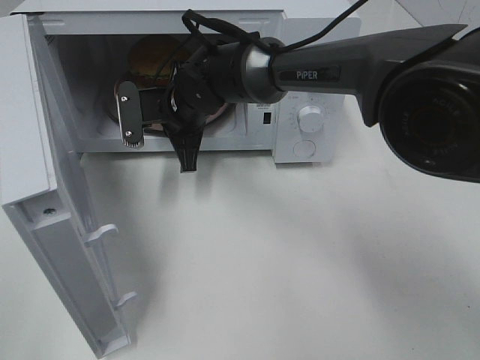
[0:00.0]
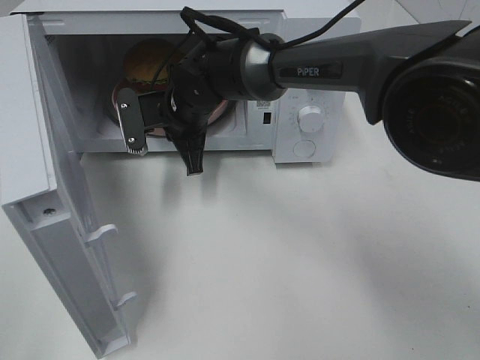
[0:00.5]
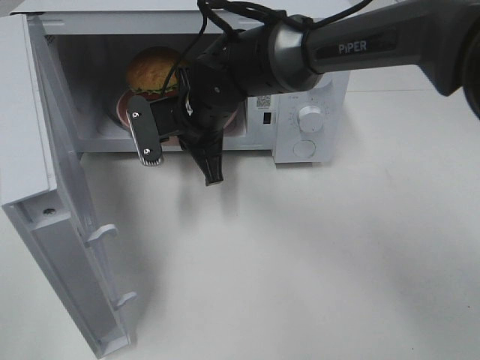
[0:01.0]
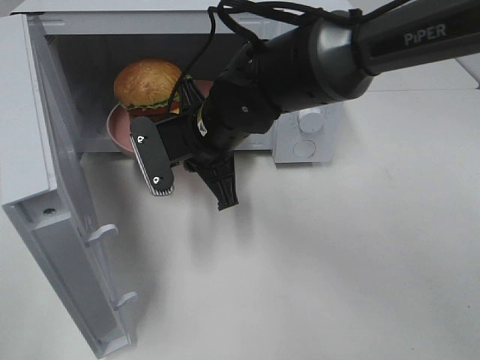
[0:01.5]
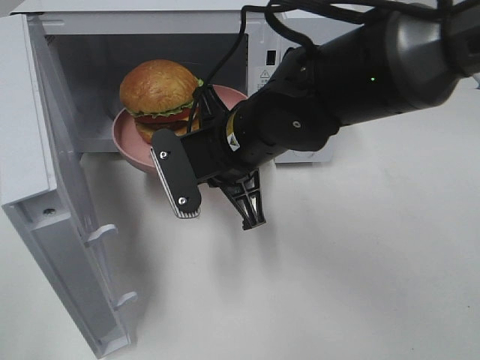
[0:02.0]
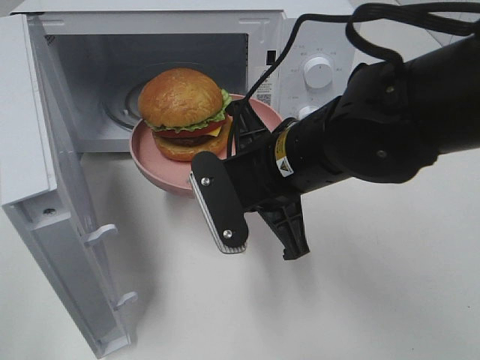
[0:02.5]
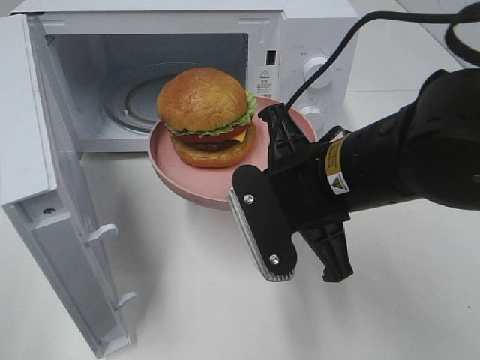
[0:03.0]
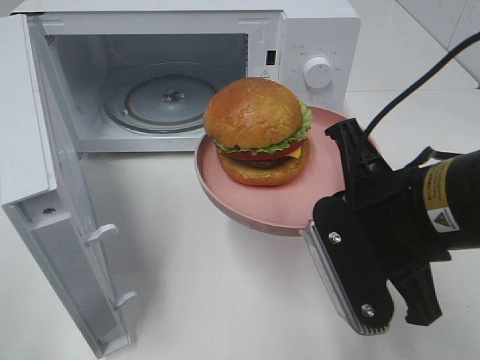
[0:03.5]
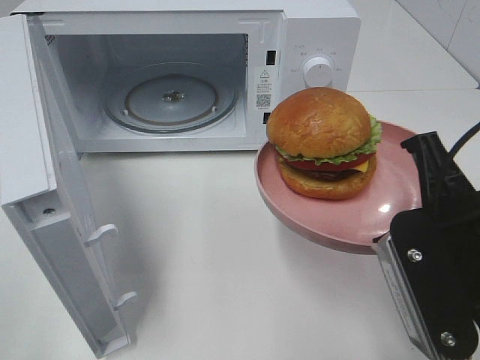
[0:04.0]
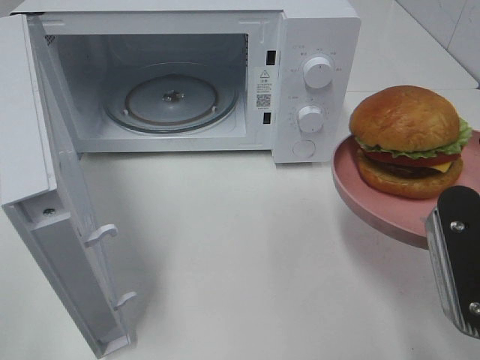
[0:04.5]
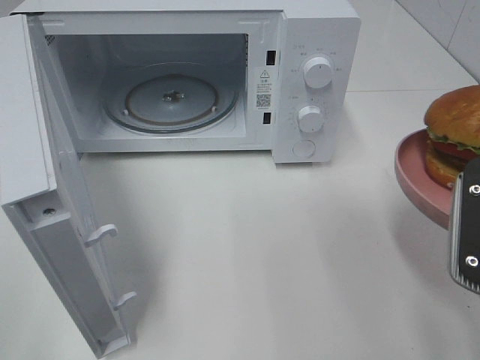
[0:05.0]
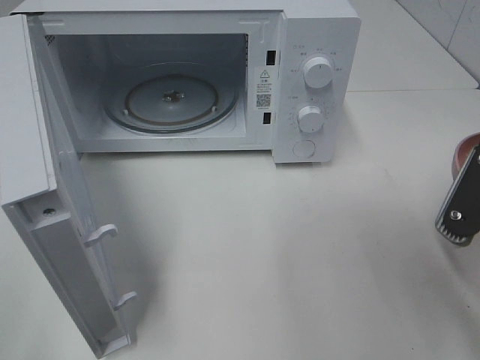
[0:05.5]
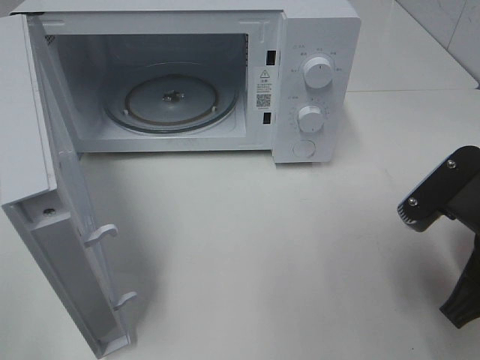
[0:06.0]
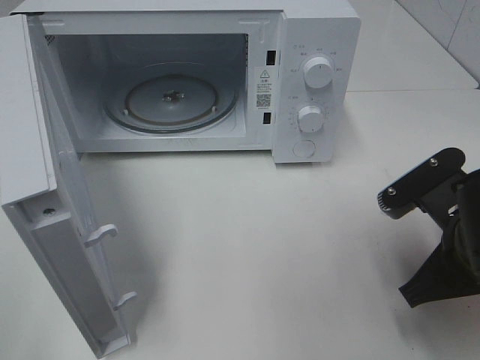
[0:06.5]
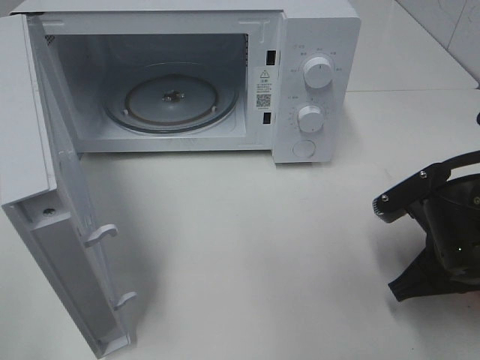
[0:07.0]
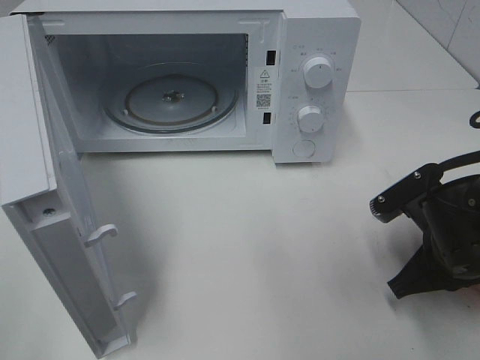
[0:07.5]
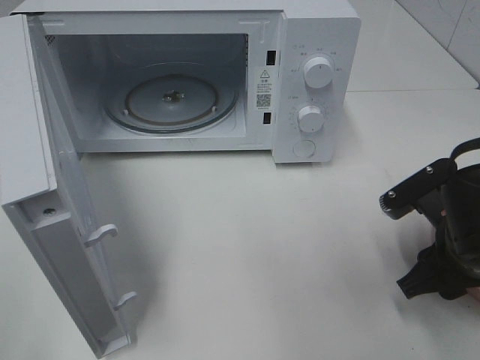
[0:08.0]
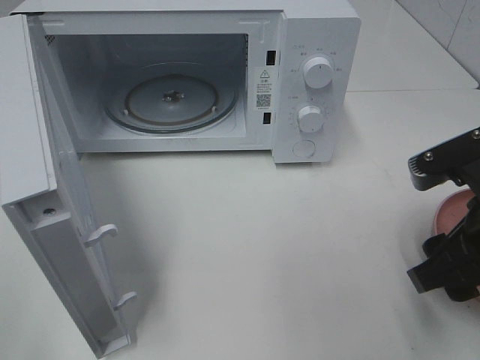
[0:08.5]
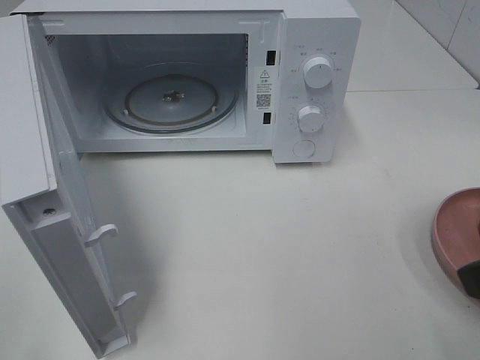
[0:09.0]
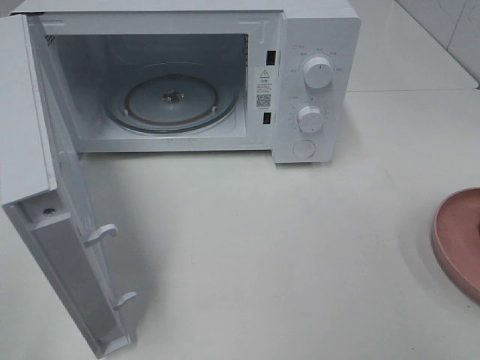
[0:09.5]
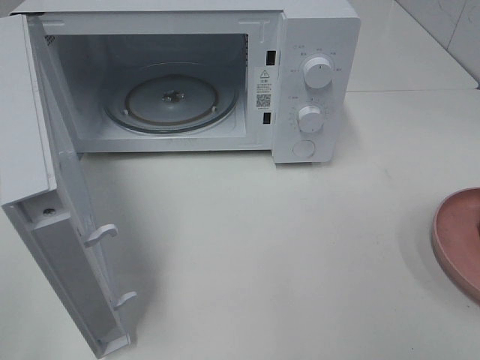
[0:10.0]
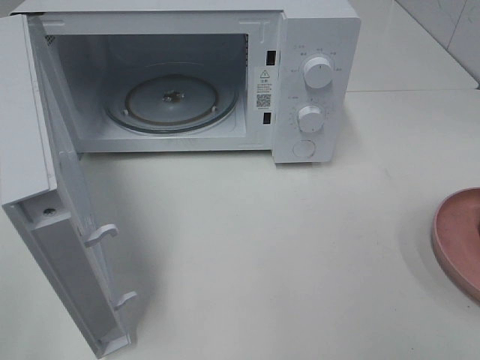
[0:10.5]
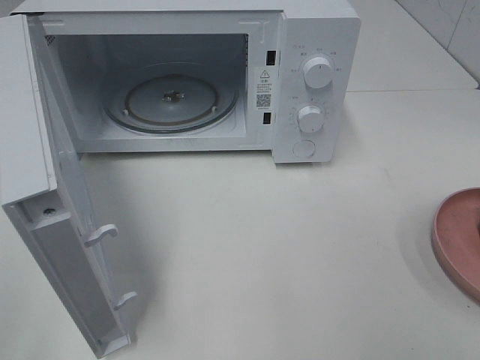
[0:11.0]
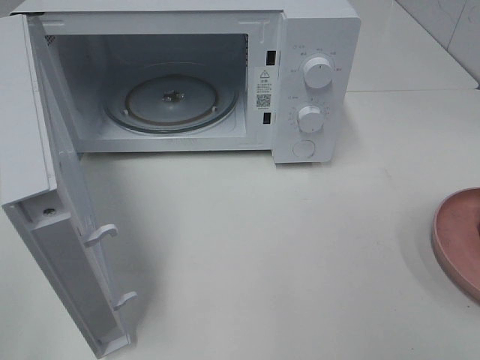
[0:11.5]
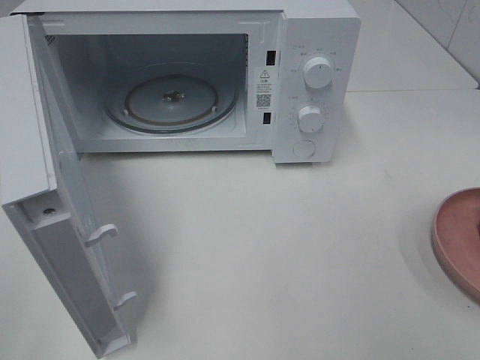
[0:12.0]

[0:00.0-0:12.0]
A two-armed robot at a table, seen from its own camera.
Task of the whole recording: Heat the burger.
Step, 0:00.0 to 0:07.5: Right hand: place the plate on the table.
0:00.0 to 0:02.0: The right gripper goes roughly 15 cm backward and to the right.
0:02.0 to 0:04.0: The right gripper heads to the right and backward, covering approximately 20 cm.
0:04.0 to 0:06.0: The right gripper shifts by approximately 5 cm.
0:06.0 to 0:08.0: The right gripper shifts approximately 5 cm downward, and opens up.
0:08.0 to 0:10.0: The right gripper travels backward, upward and to the right by about 25 cm.

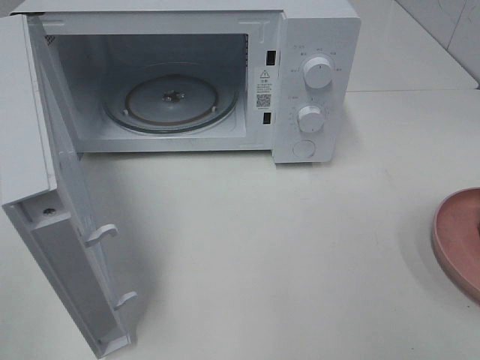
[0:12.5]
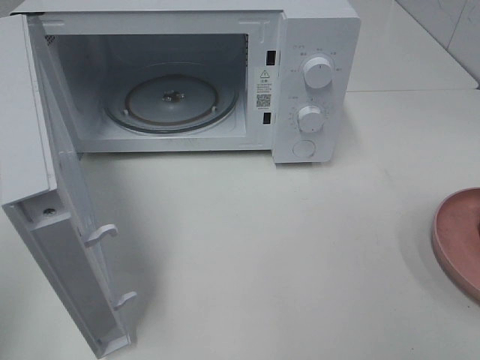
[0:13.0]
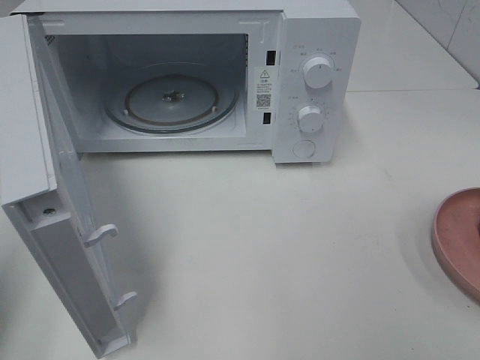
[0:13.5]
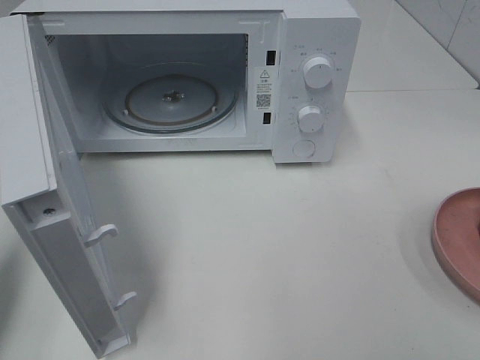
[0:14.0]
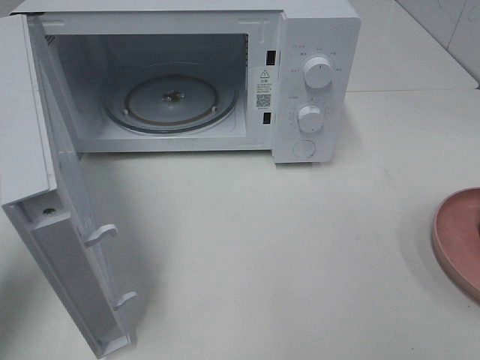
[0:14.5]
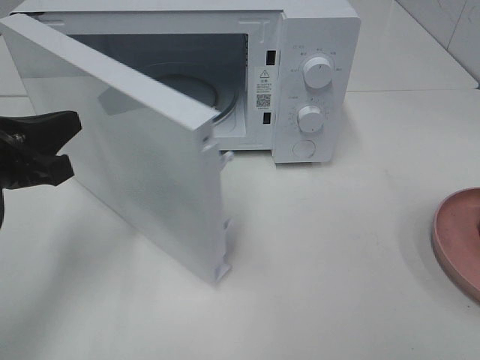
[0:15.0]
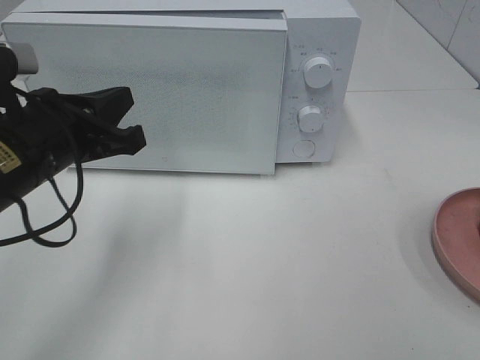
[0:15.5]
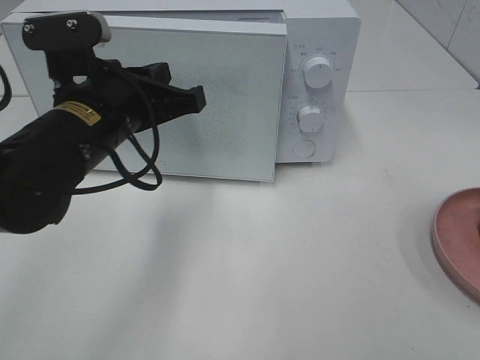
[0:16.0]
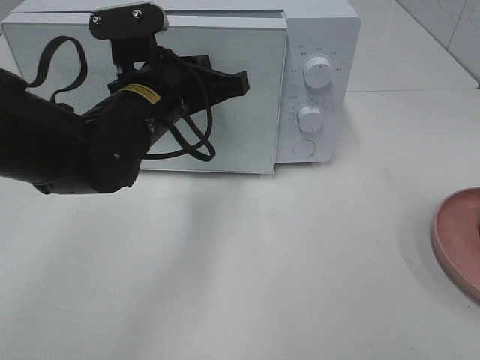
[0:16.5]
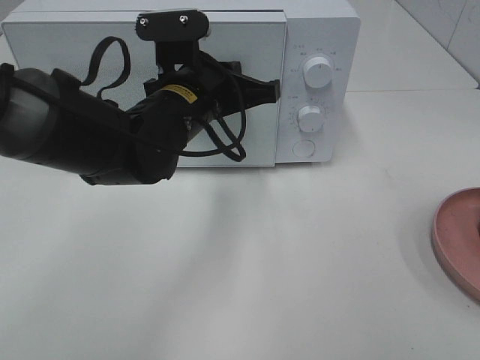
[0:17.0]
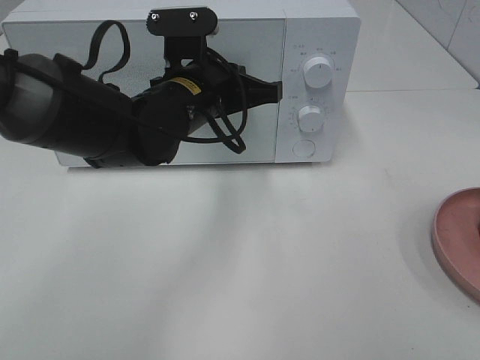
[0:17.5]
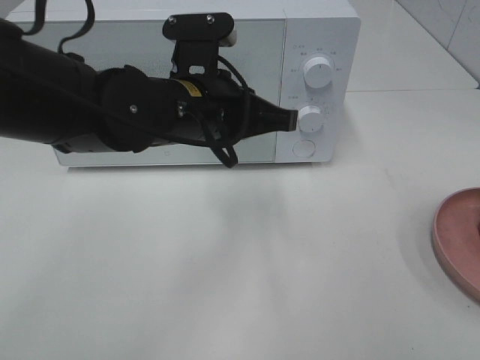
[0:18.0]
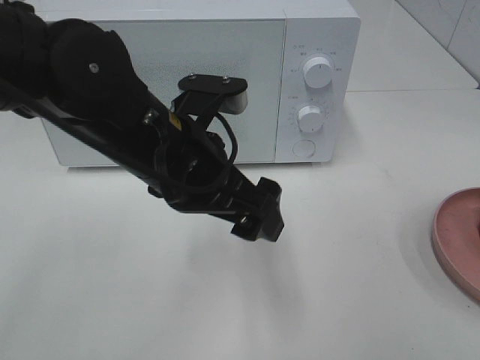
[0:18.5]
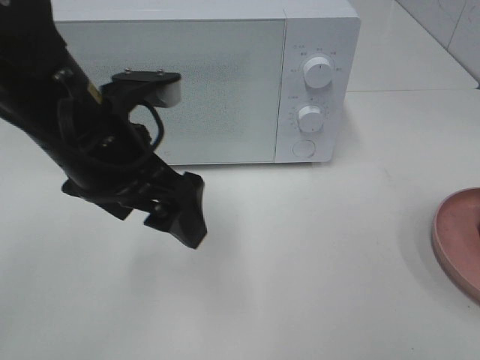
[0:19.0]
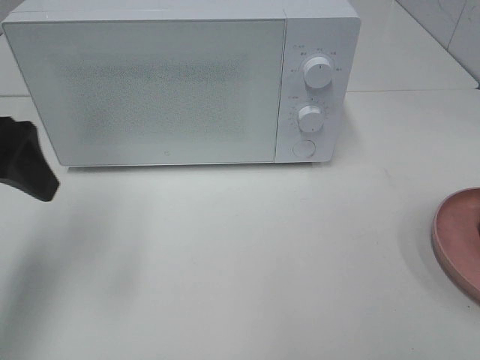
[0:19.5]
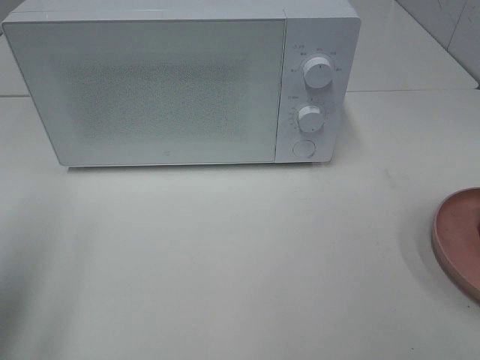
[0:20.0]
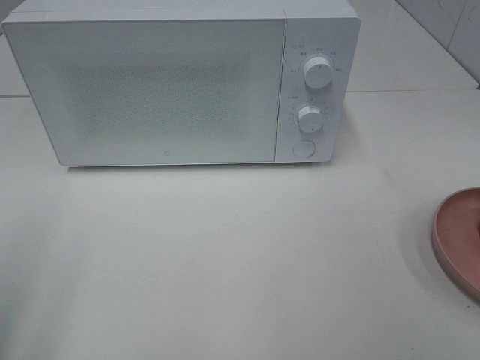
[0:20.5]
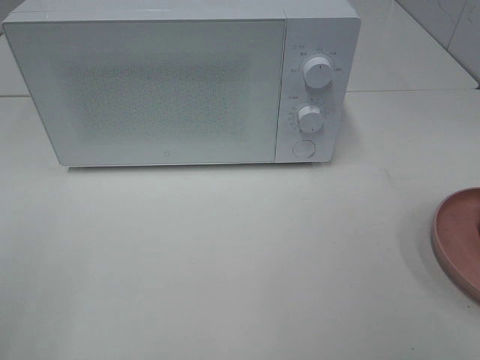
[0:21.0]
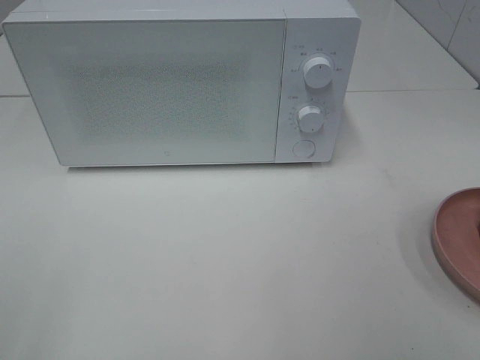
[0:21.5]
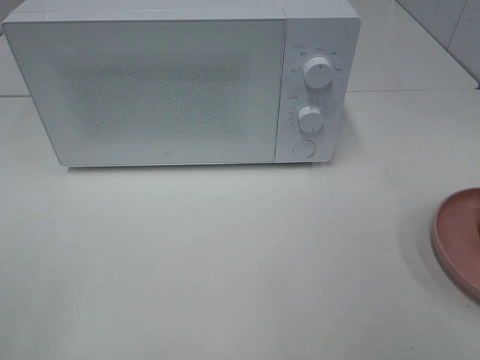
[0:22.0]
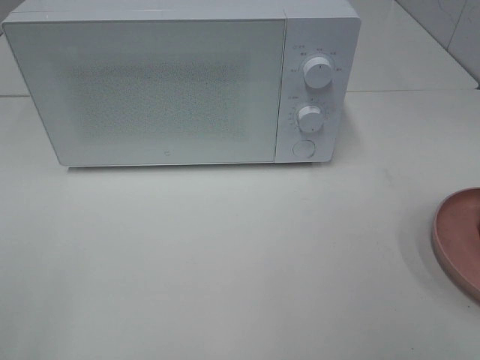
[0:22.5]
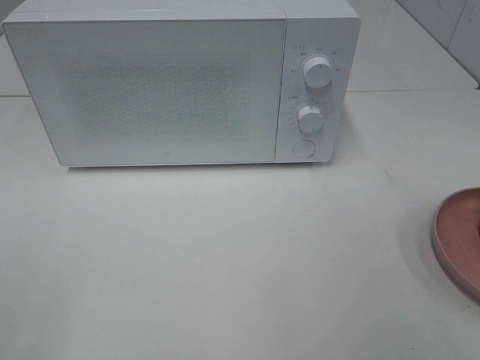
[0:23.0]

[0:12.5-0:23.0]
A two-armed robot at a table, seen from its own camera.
Task of the whole recording: Heat the burger.
Step, 0:12.5 to 0:17.5: Left hand: close the microwave door.
0:12.5 to 0:14.5: The left gripper heads forward and downward, covering approximately 20 cm, and closes up.
0:14.5 to 0:16.5: The left gripper is displaced to the right and forward by approximately 25 cm.
0:16.5 to 0:19.0: The left gripper is displaced backward by about 5 cm, and opens its fingers.
0:19.0 to 0:21.0: The left gripper shifts some 30 cm backward and to the left.

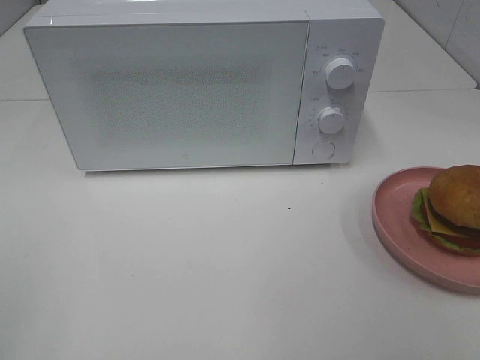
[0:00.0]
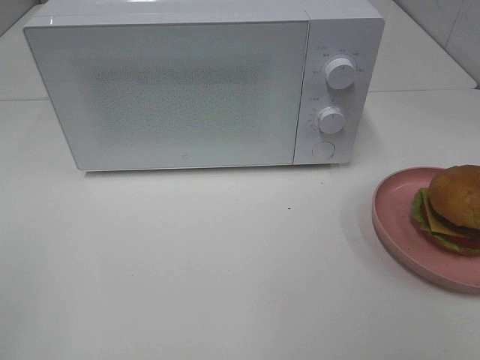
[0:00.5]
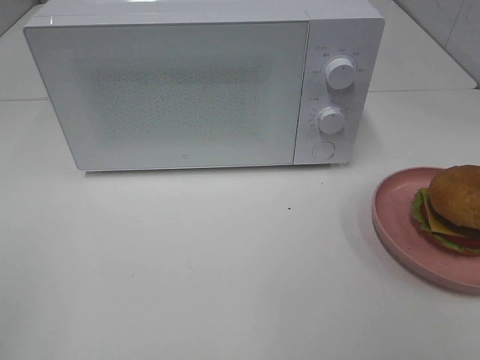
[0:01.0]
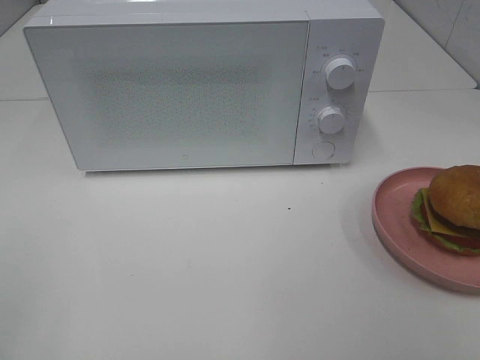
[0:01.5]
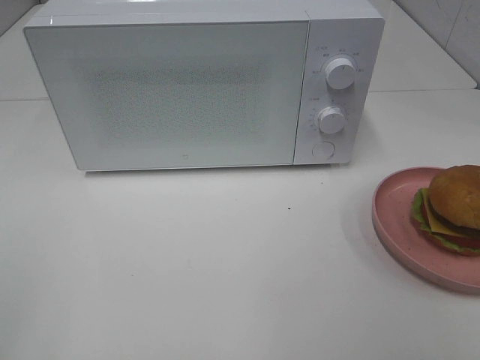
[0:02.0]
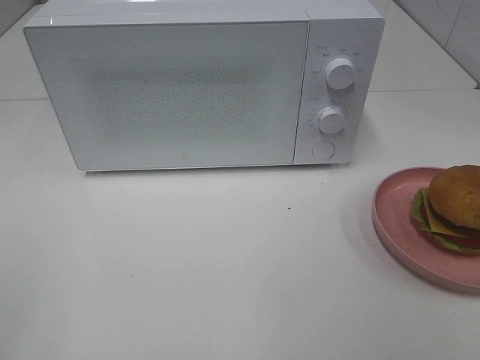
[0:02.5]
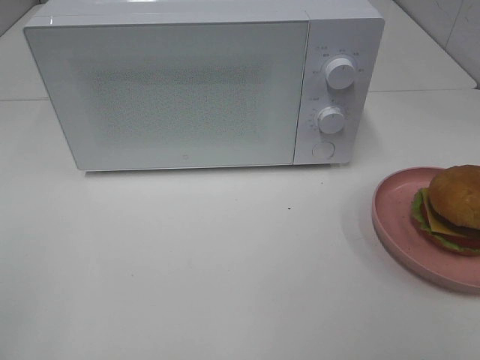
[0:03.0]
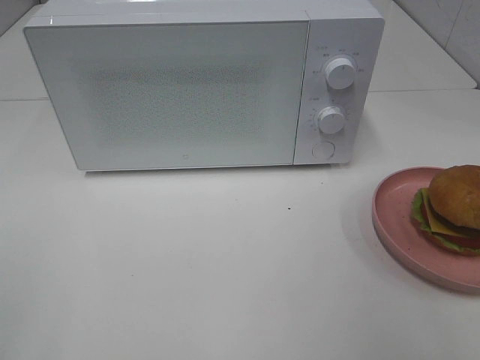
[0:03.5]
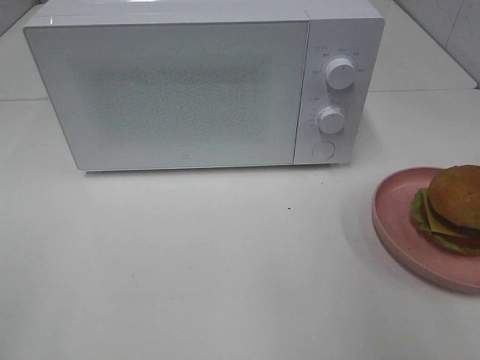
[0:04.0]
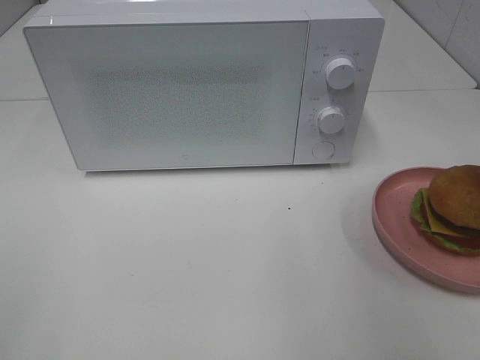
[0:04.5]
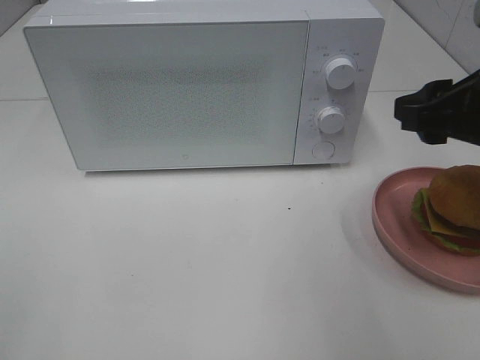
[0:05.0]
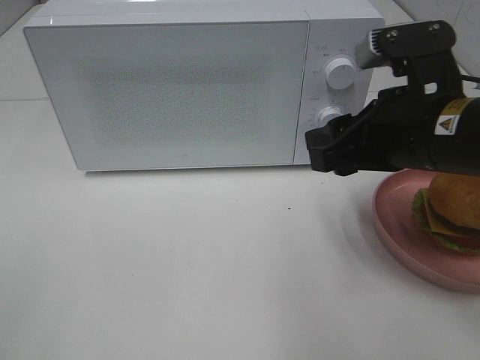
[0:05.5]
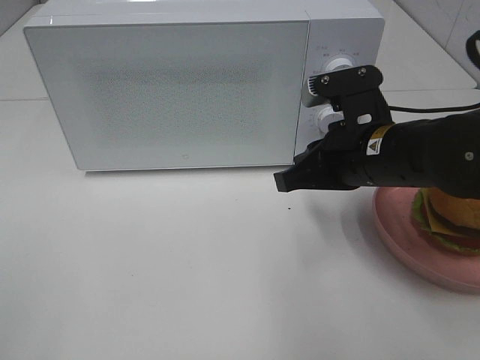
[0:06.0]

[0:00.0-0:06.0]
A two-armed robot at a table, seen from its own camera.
Task of the whole recording: Heat the burger.
0:00.0 to 0:02.0: Both grippers stay put.
0:04.0 to 0:06.0: The right gripper goes roughly 25 cm to the left, downward and forward, and closes up.
